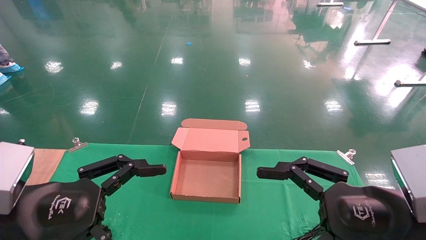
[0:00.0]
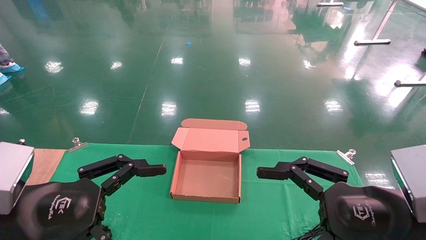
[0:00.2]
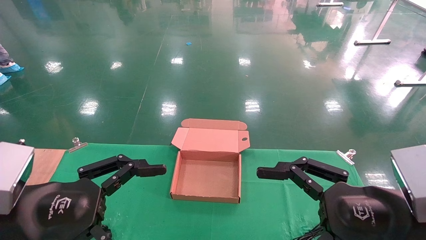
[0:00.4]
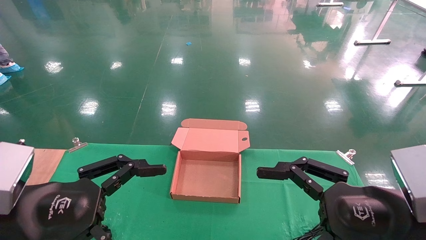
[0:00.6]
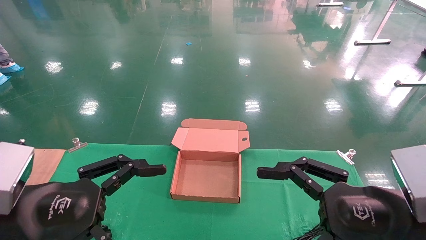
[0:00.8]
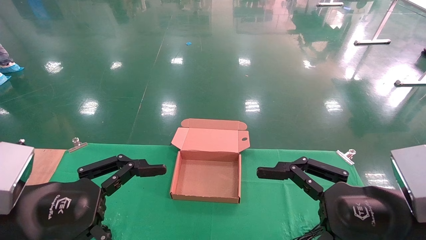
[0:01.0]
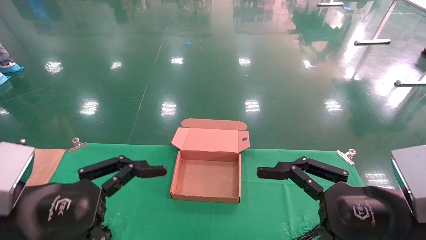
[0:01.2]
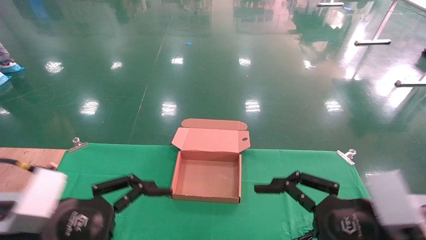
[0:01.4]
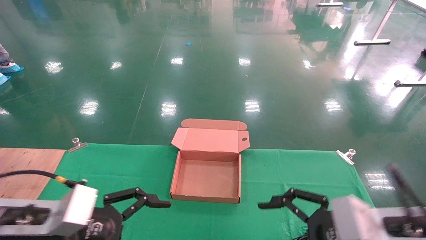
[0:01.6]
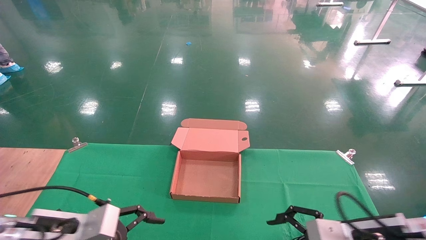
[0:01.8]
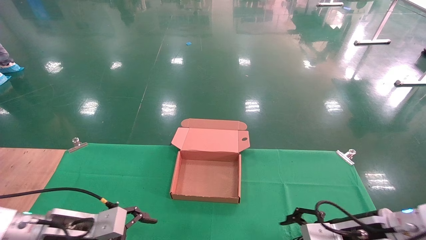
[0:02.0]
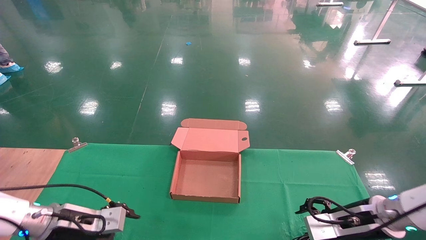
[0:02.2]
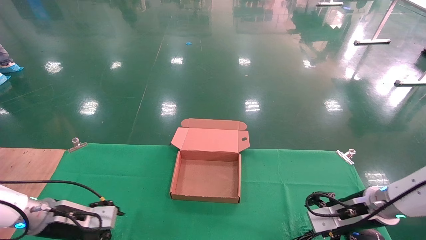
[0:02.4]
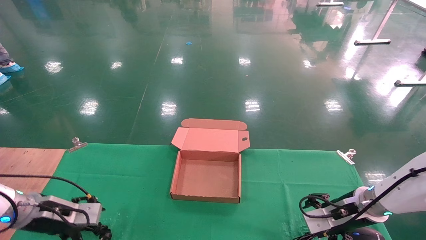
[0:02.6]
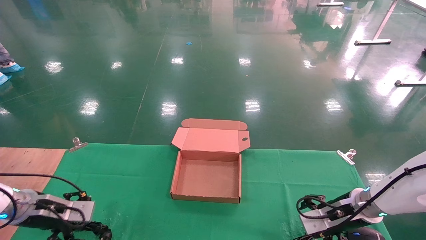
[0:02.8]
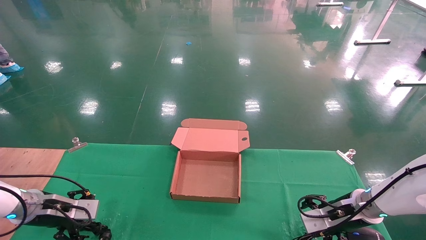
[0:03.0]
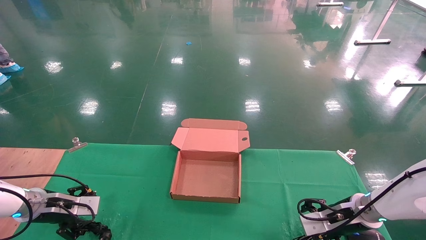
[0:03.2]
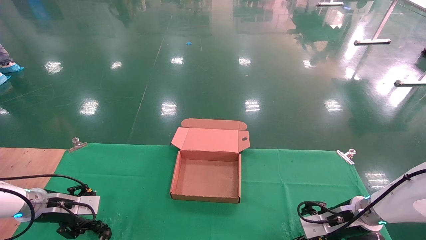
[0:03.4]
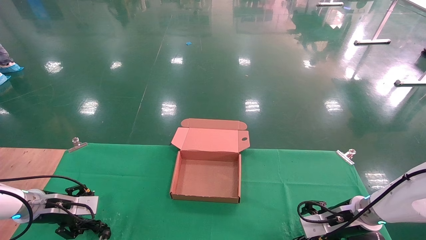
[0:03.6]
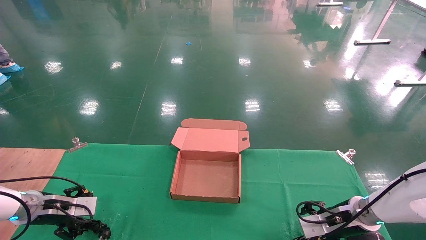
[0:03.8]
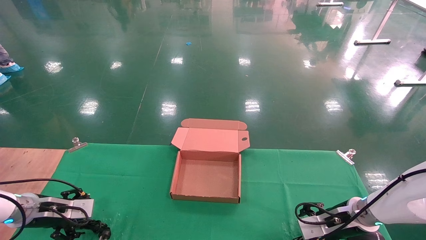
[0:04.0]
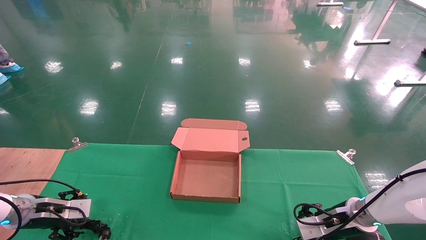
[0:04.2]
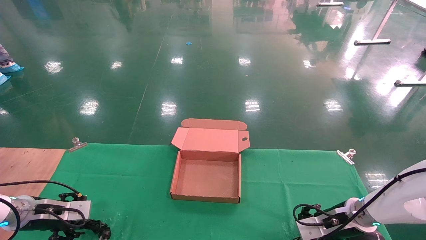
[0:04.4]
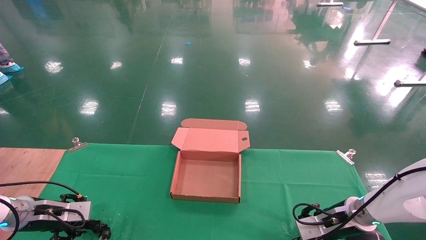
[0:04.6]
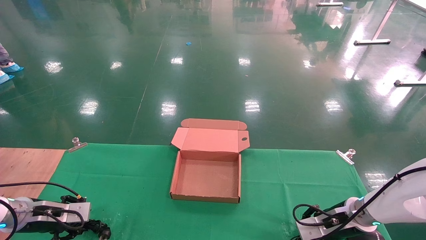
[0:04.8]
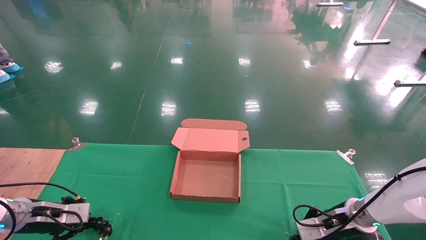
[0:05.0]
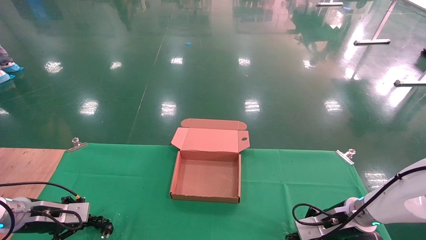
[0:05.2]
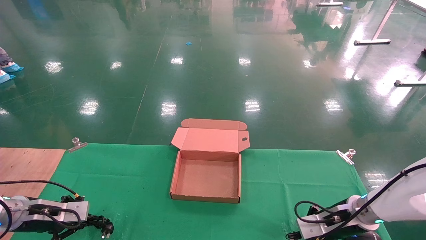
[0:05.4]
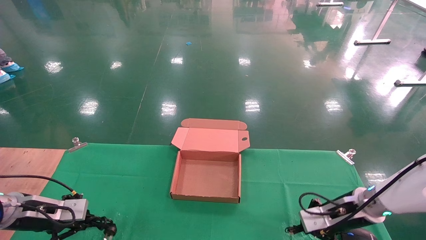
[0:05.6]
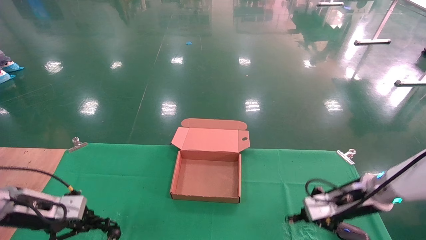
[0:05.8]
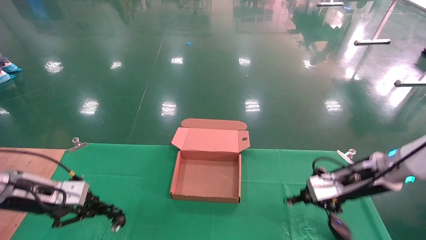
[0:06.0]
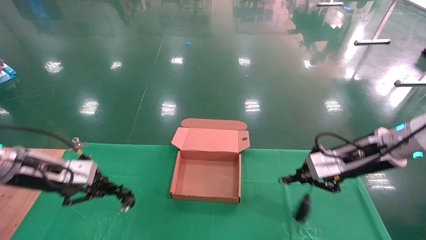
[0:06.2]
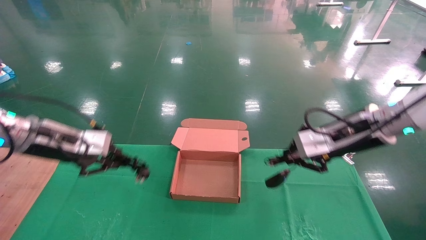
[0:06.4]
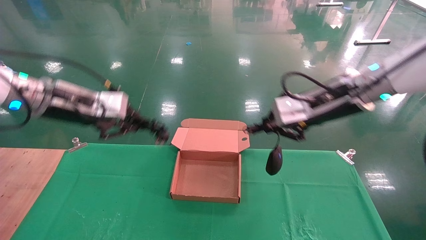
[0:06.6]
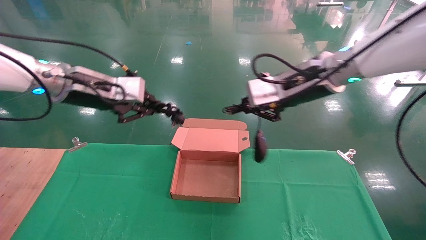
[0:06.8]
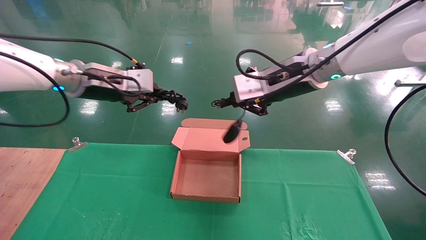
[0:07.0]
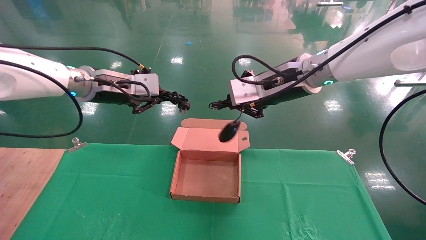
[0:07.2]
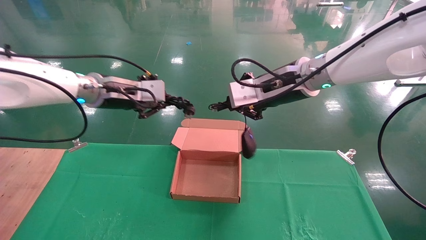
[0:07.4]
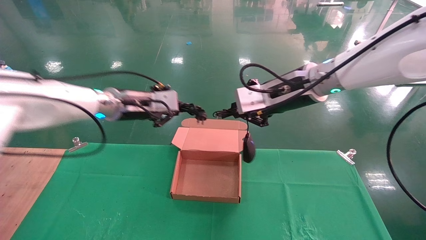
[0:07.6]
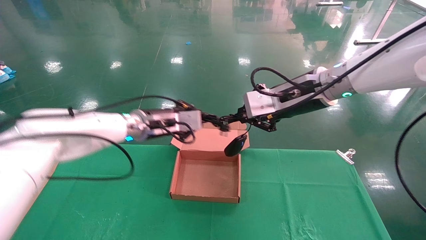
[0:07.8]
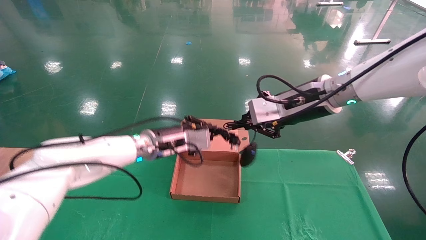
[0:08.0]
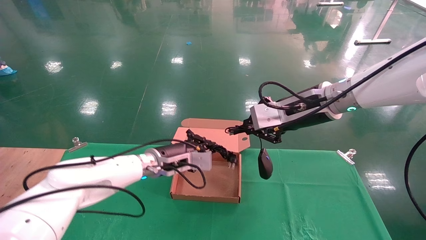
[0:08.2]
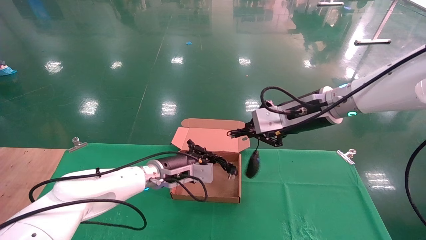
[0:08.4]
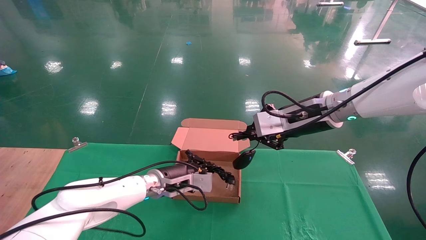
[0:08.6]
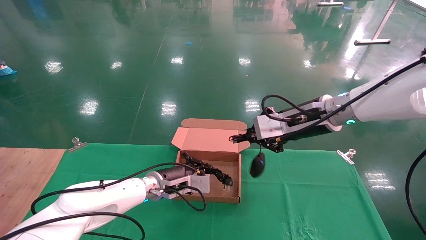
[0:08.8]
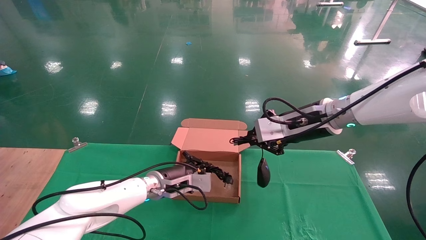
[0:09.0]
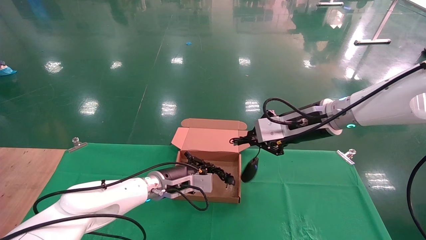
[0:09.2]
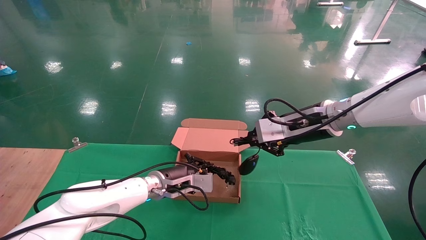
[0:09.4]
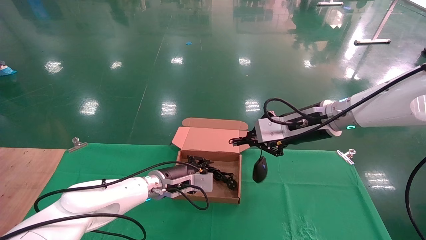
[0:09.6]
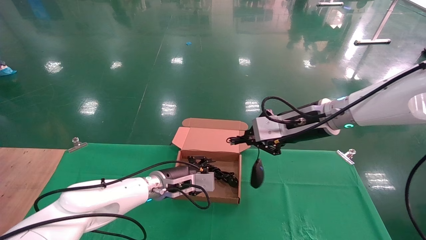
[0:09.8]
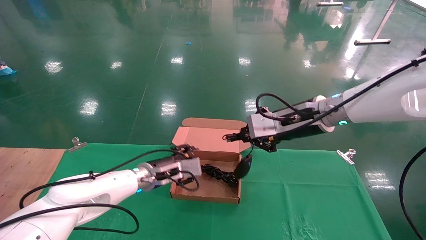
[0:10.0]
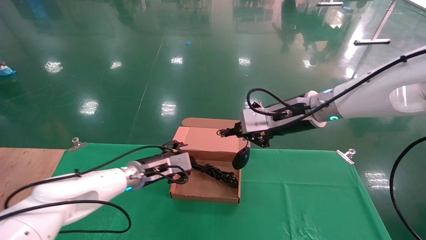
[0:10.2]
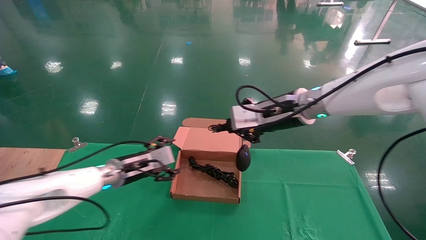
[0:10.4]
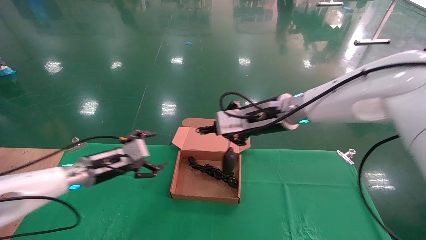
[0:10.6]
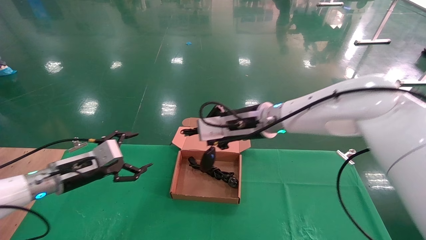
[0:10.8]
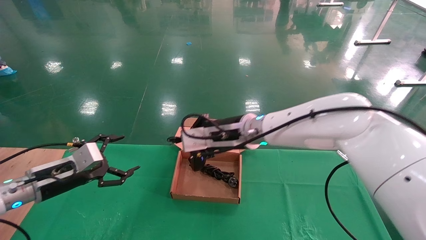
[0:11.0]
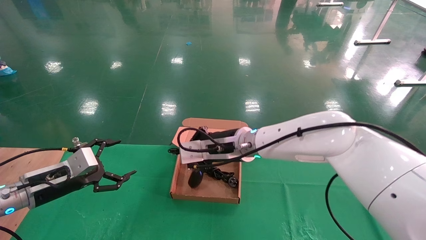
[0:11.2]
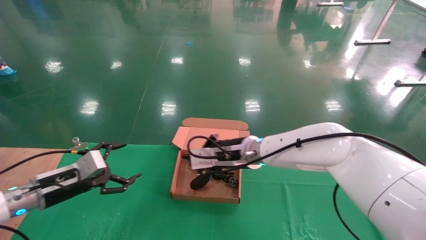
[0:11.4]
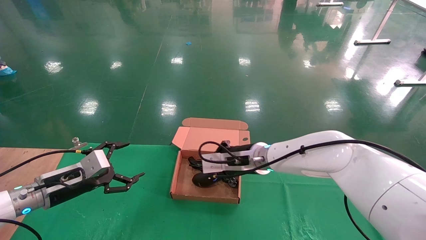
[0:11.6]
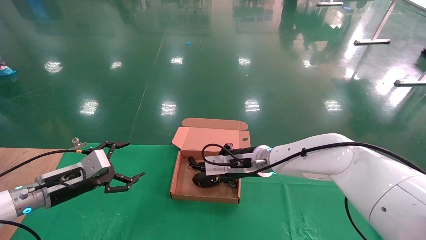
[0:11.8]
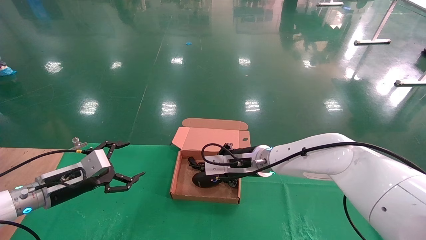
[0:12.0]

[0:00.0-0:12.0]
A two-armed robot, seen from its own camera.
Step, 2.0 to 6.4 s: Grab and lift both the mouse and power cord from the accessory packaging area at the same time.
0.0 to 1.6 s: The right gripper goes about 5 cm downward; the left gripper travels downward and forward by about 10 cm.
1.6 to 3.0 s: The right gripper heads forward and downward, covering about 20 cm, while the left gripper is displaced forward, to the left and downward by about 20 cm.
3.0 to 4.4 s: The grippers move only a little.
4.4 to 6.0 s: Both grippers travel together upward, some 10 cm. The right gripper closes; the left gripper closes its fingers.
6.0 to 7.6 s: The left gripper is displaced to the right, upward and forward by roughly 25 cm, while the right gripper moves upward and to the left, some 20 cm.
7.6 to 9.0 s: The right gripper moves downward, roughly 5 cm; the left gripper heads downward, covering approximately 20 cm.
9.0 to 10.4 s: The left gripper shifts approximately 10 cm to the left, and opens; the right gripper travels to the left by about 5 cm.
10.4 to 12.0 s: The right gripper heads downward and to the left, covering some 15 cm. Meanwhile the left gripper heads to the left and backward, covering roughly 15 cm.

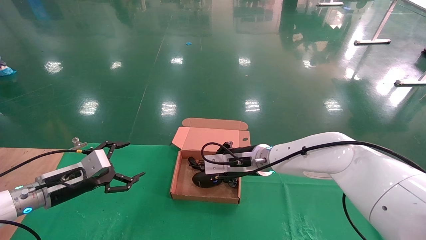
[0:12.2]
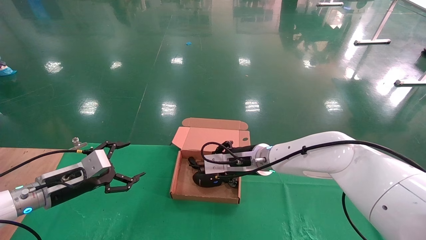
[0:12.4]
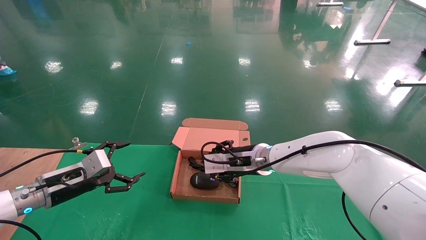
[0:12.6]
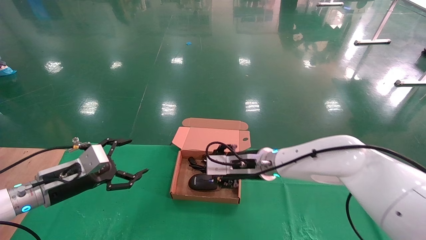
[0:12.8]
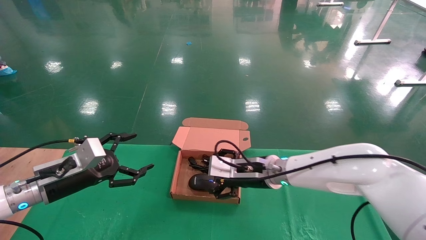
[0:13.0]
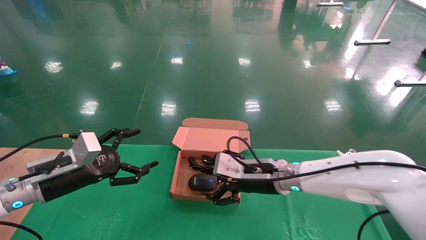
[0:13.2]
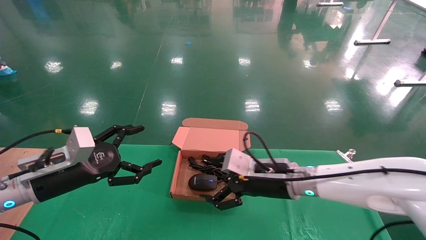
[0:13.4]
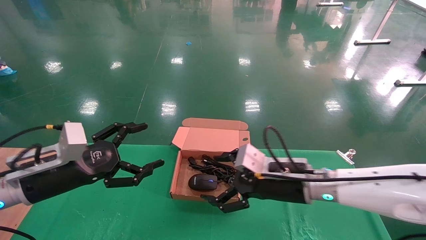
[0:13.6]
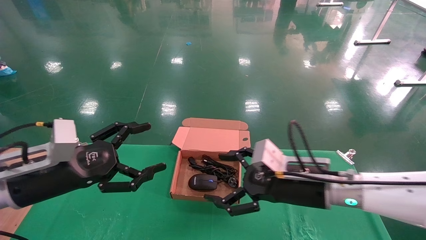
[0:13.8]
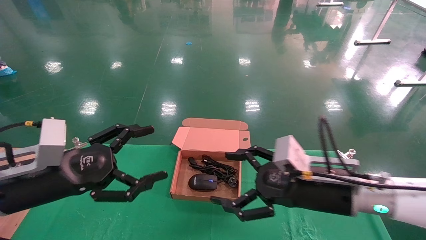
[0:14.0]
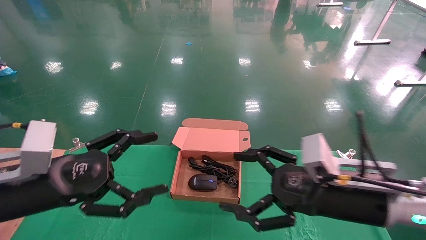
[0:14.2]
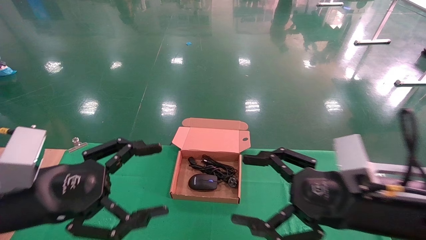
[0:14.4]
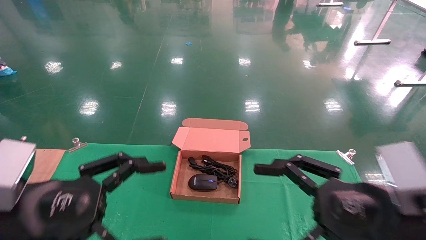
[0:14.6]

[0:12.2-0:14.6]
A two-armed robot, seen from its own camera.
12.2 to 13.4 s: The right gripper goes roughly 10 cm backward and to the right, and opens up. Meanwhile the left gripper goes about 10 cm upward and backward.
13.4 to 14.6 s: The left gripper travels backward by some 15 cm. The right gripper is displaced backward and to the right by some 20 cm.

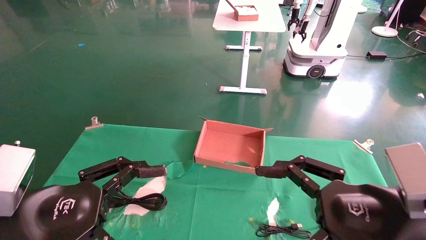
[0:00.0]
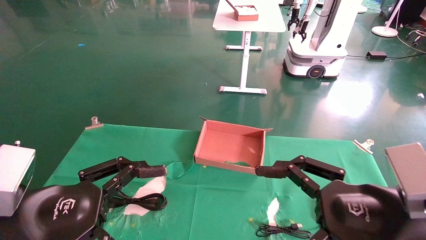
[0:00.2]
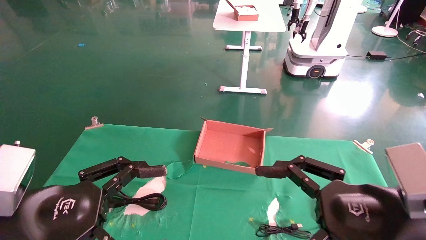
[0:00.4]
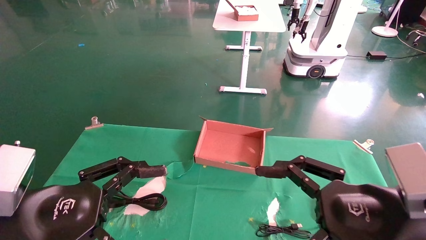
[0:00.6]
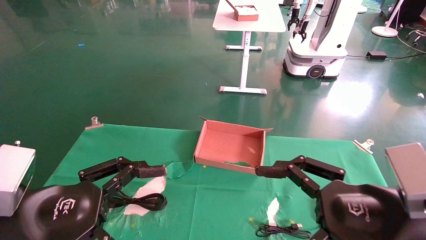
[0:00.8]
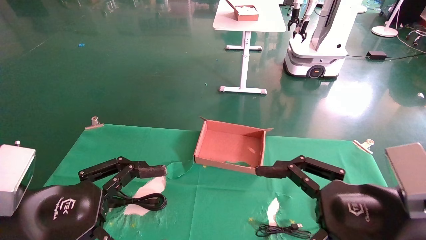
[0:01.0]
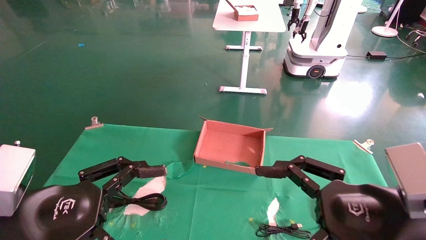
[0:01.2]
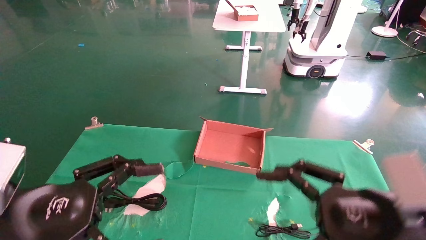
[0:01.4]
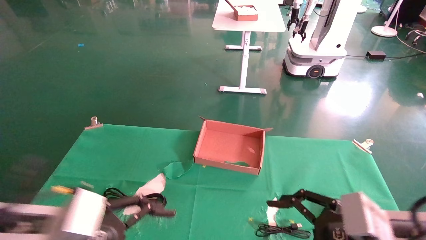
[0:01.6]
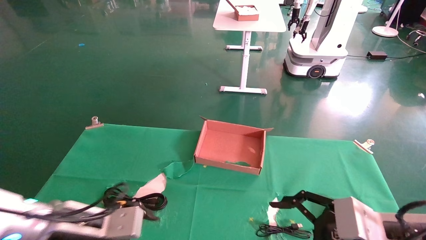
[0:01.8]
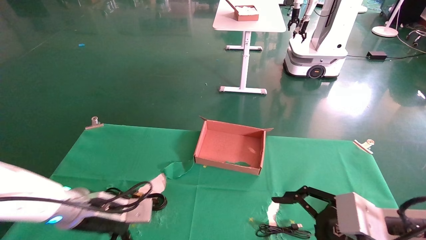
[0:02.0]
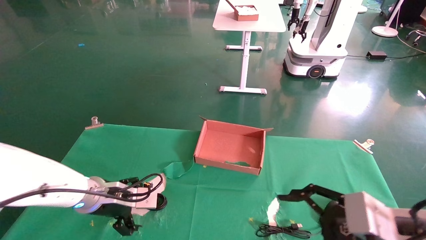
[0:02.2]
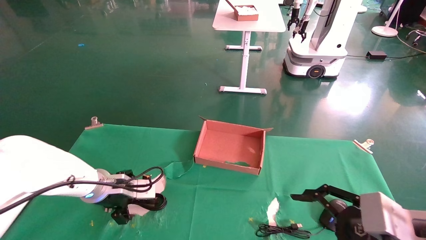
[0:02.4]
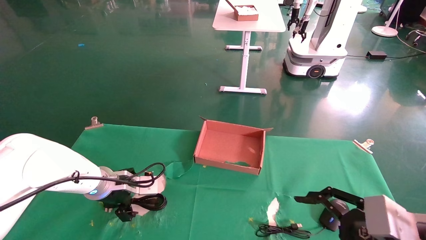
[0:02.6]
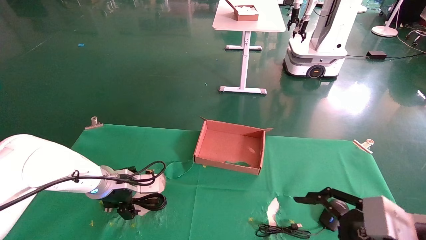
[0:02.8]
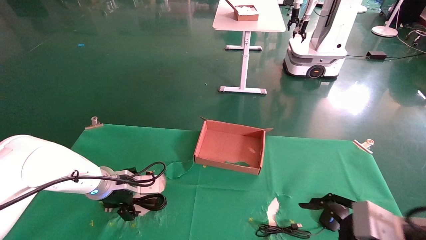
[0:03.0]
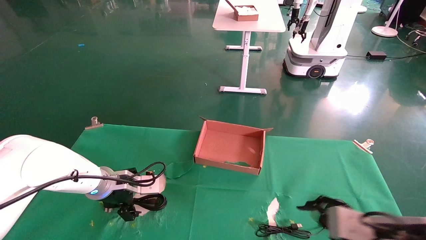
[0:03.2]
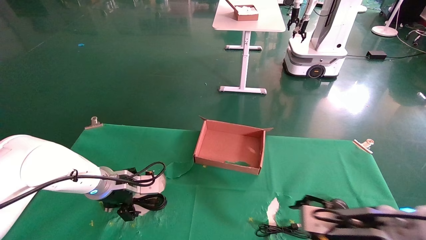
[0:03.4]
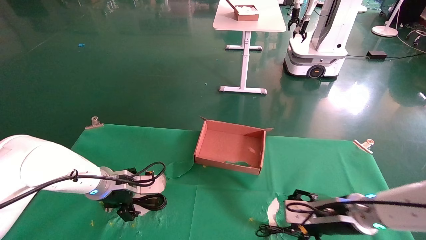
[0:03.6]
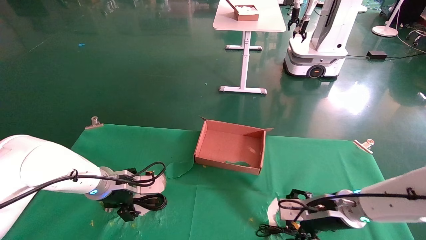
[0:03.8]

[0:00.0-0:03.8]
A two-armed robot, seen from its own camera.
0.0 to 1.2 s: Both grippers stay about where they are.
1.2 to 2.6 s: The left gripper shifts approximately 25 cm forward. The right gripper moves some 5 cm.
2.6 to 3.8 s: The right gripper travels forward by approximately 15 cm.
